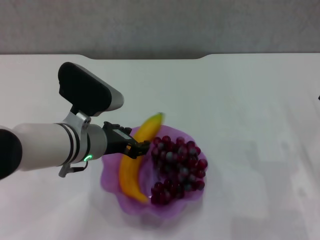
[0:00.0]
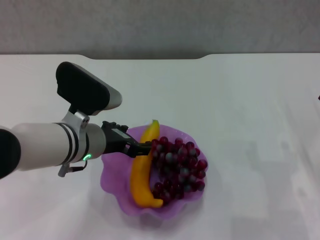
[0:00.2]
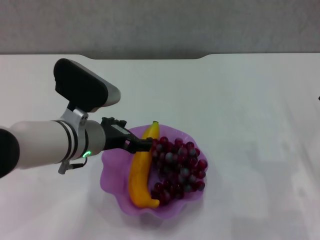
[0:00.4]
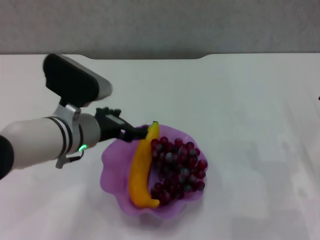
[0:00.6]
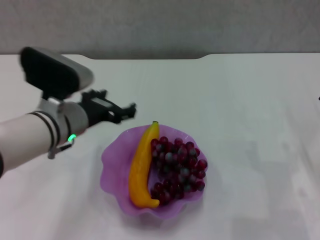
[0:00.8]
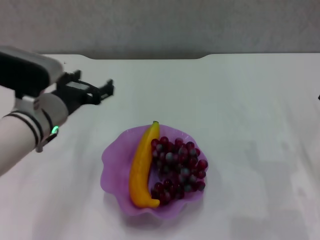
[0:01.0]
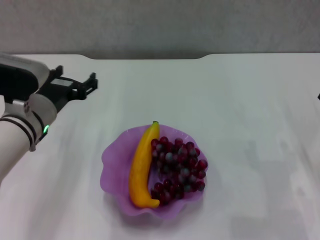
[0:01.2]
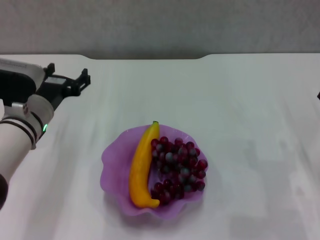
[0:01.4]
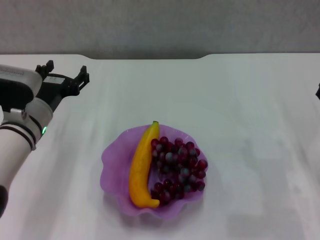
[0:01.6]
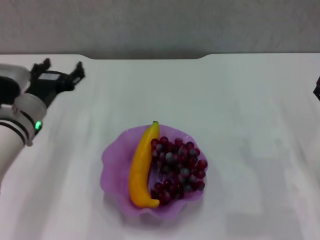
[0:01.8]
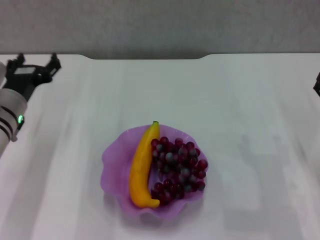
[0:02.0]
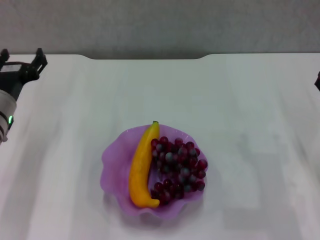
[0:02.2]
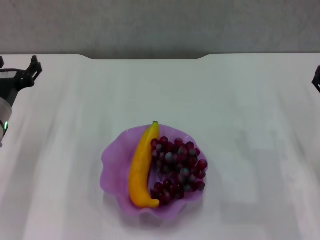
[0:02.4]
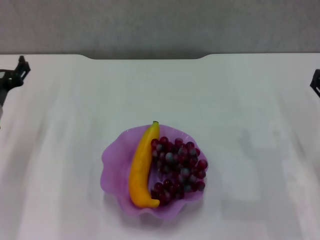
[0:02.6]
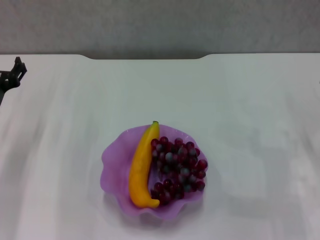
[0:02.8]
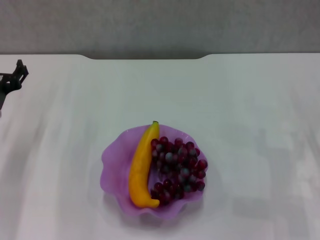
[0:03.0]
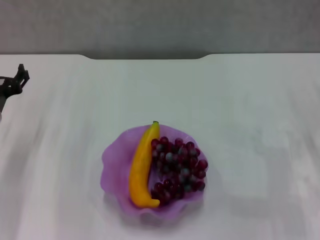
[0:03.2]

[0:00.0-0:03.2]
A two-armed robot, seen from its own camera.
0:00.0 to 0:01.6: The left gripper travels to the left by approximately 10 cm, and opens its fingers.
0:01.6 to 0:03.2: The left gripper shifts roughly 5 cm to the left.

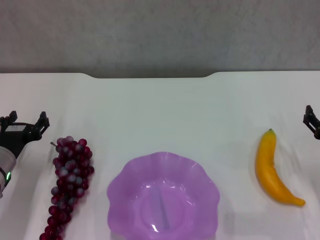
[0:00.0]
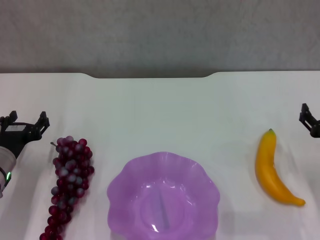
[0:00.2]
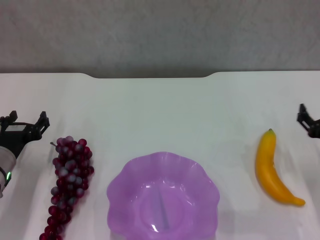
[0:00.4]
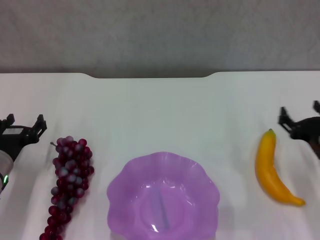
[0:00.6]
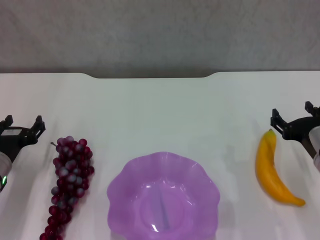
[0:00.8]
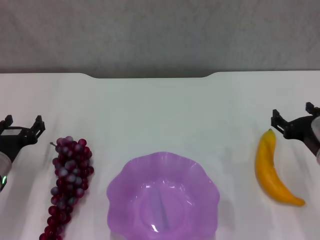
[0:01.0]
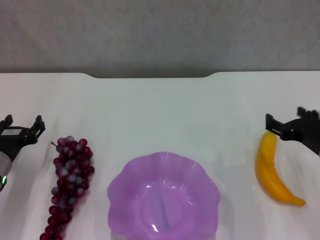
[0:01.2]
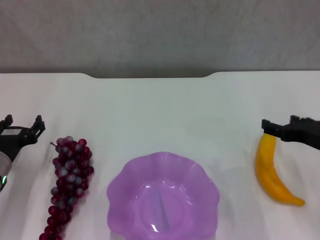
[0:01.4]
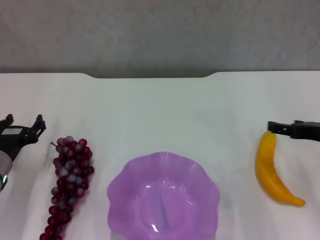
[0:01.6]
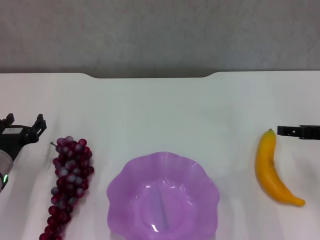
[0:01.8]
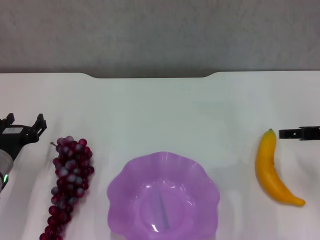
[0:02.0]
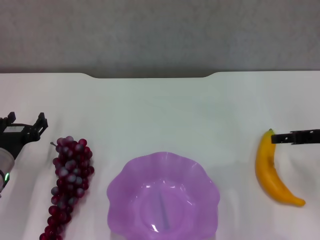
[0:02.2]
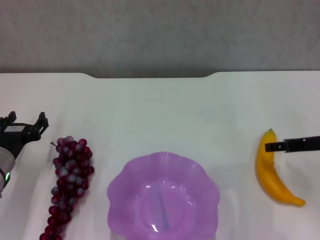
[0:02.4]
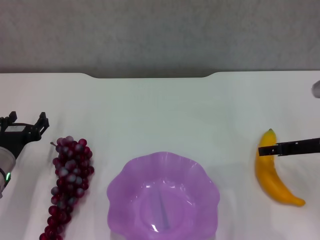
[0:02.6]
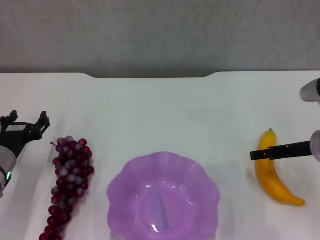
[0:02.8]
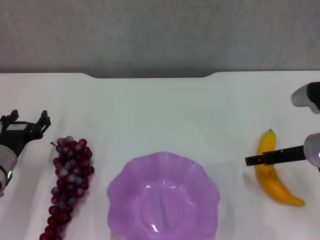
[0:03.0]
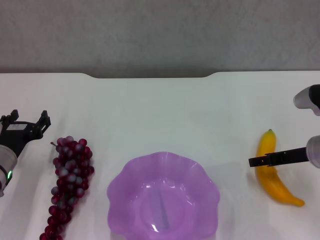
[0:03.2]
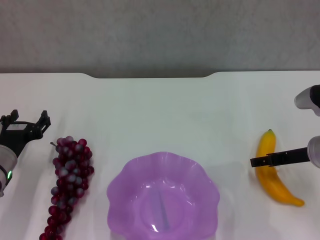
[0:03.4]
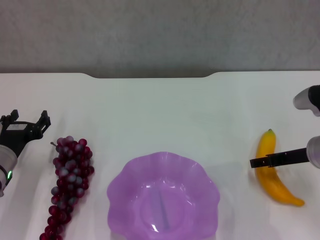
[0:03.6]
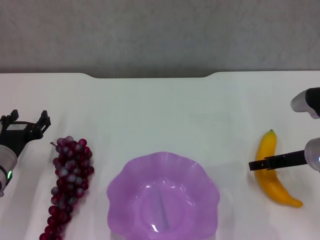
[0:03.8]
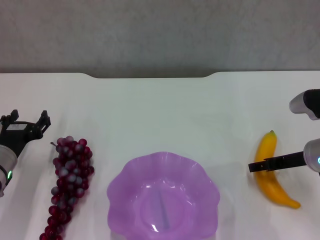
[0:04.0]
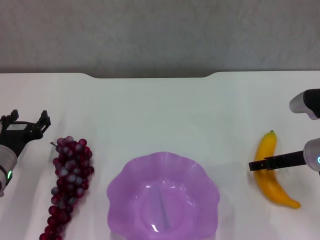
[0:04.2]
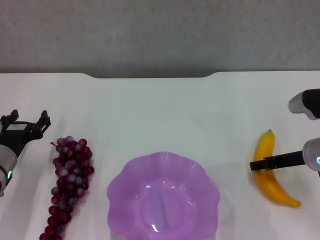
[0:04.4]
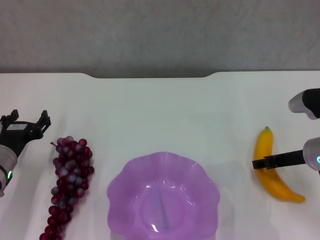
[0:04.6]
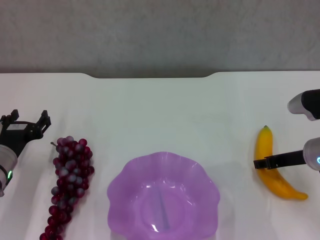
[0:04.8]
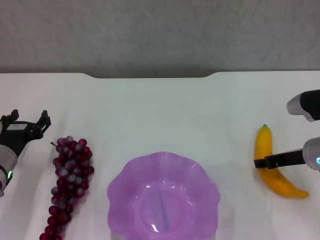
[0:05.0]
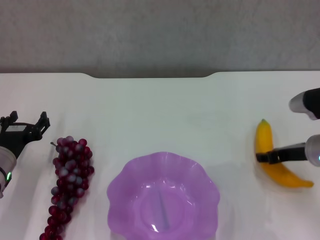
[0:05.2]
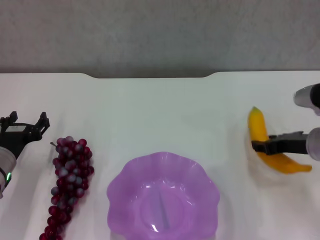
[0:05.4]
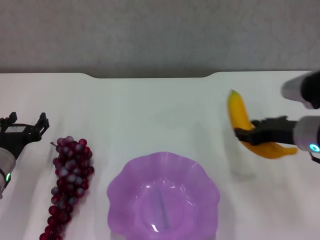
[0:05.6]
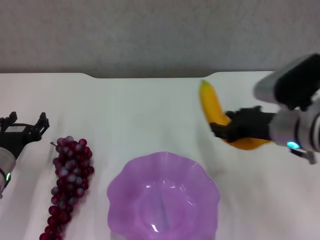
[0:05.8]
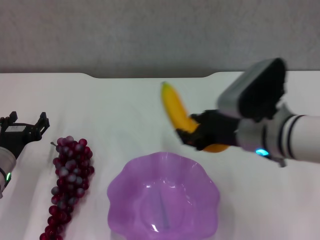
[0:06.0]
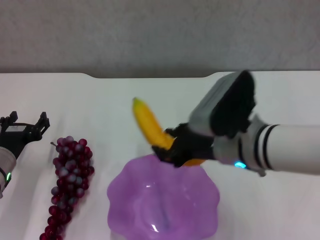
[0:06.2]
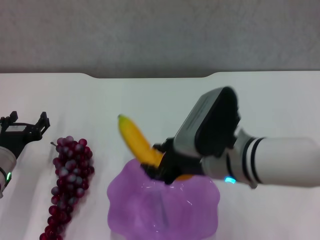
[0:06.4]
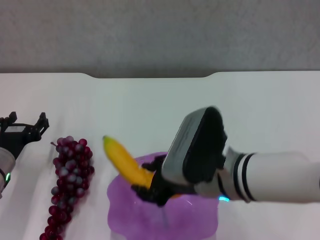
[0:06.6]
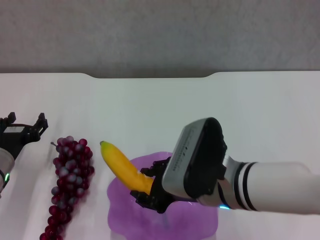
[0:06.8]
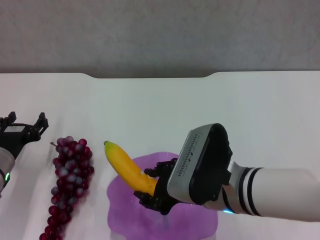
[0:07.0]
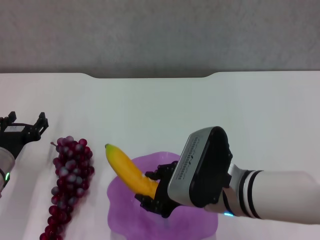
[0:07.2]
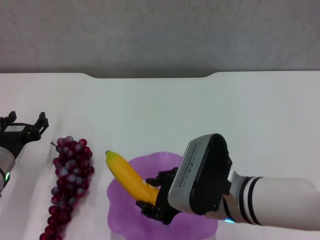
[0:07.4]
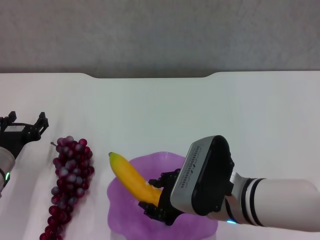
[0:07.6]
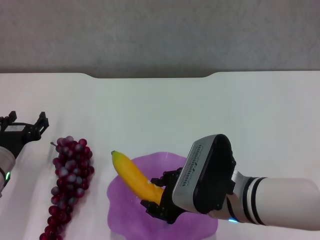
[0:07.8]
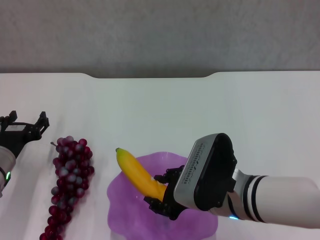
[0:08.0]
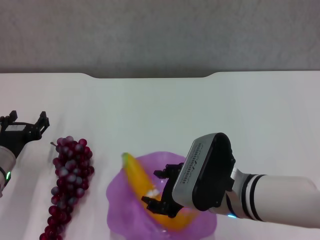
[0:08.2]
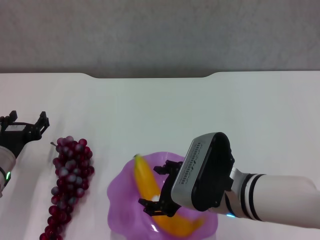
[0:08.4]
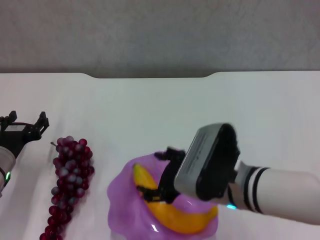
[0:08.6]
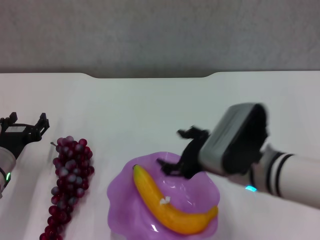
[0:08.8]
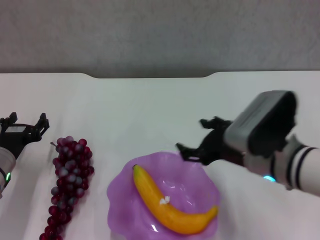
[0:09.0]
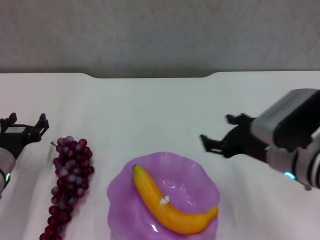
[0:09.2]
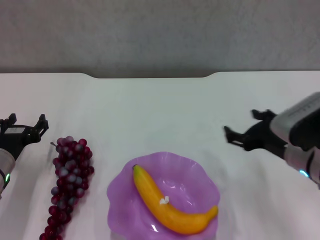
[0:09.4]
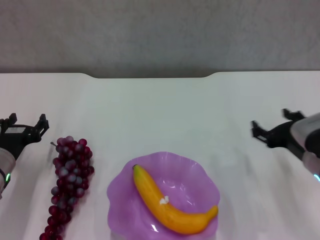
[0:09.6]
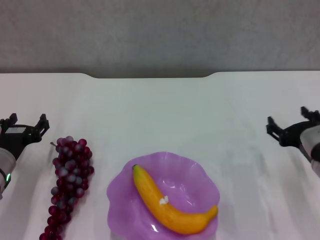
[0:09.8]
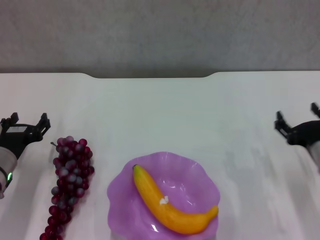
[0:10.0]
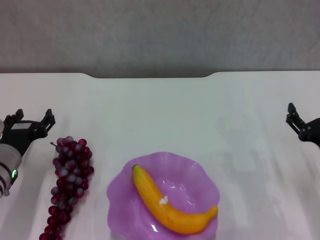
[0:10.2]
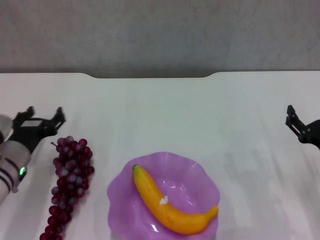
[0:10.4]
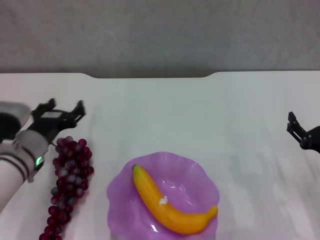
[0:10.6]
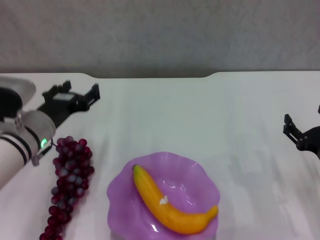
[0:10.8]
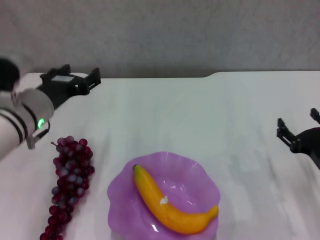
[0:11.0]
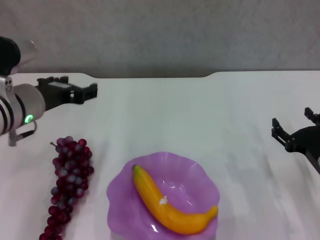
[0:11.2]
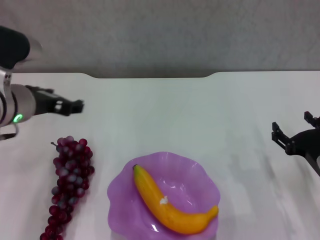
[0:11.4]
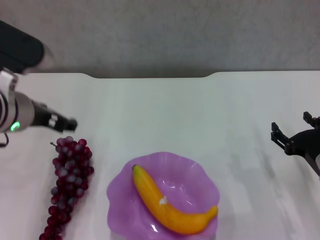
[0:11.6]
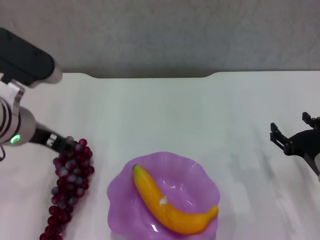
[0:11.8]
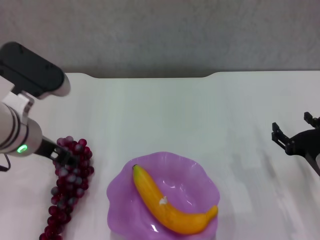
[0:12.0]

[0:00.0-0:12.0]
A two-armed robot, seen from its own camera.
Step, 0:00.0 to 0:04.6: Grasp the banana with right gripper.
Step, 0:05.0 to 0:08.8: Place the banana in the purple plate with right gripper.
0:00.0 to 0:01.6: The right gripper is displaced upward by approximately 10 cm.
0:01.6 to 0:03.0: The right gripper ends up approximately 5 cm from where it was.
0:03.0 to 0:04.4: Both grippers stay about where they are.
0:04.4 to 0:06.0: The right gripper shifts roughly 15 cm to the left and upward, and closes up.
0:06.0 to 0:07.6: The right gripper moves backward and to the left, some 10 cm.
0:07.6 to 0:09.0: The right gripper moves to the right, roughly 5 cm, and opens its fingers.
0:09.0 to 0:10.4: The right gripper moves to the right and downward, about 15 cm.
0:10.4 to 0:12.0: The left gripper shifts about 15 cm upward and to the right.

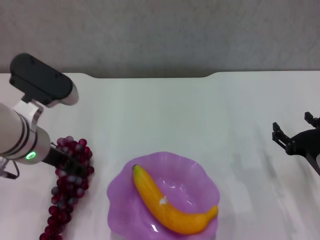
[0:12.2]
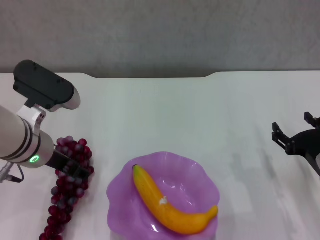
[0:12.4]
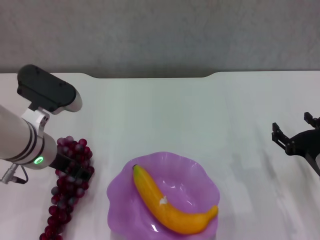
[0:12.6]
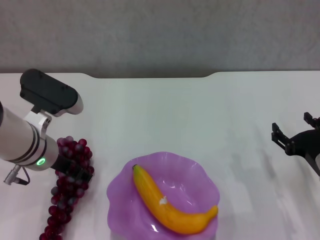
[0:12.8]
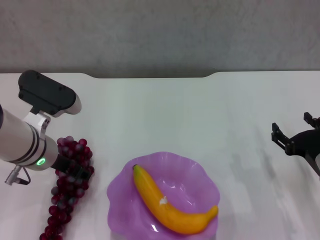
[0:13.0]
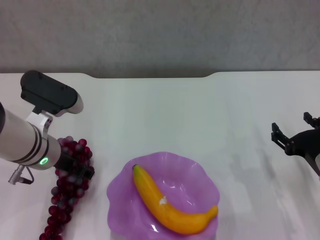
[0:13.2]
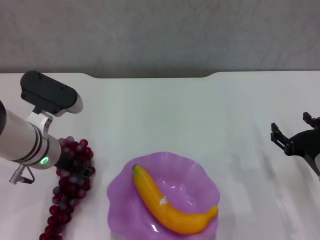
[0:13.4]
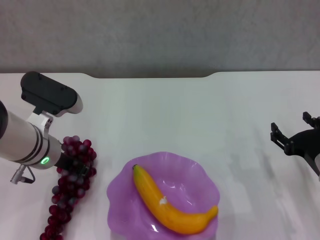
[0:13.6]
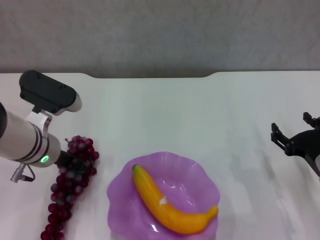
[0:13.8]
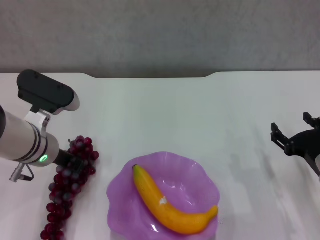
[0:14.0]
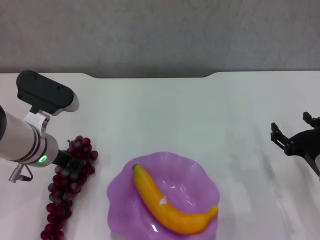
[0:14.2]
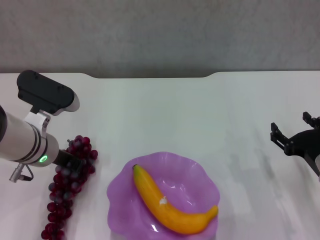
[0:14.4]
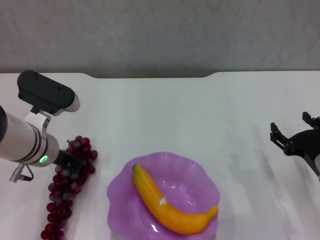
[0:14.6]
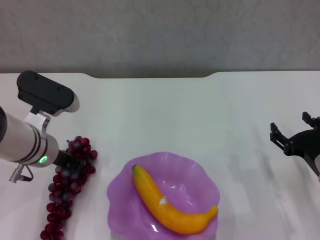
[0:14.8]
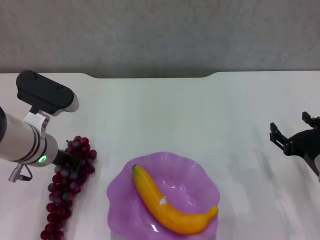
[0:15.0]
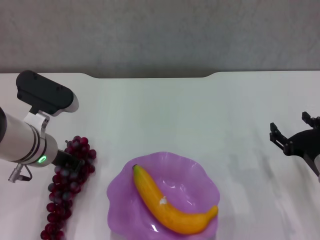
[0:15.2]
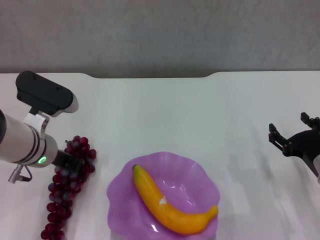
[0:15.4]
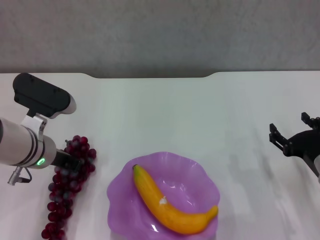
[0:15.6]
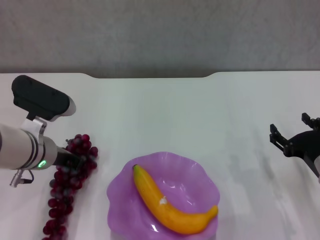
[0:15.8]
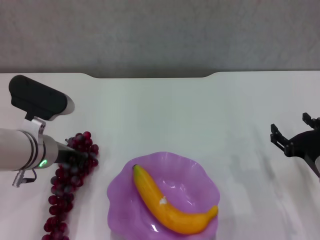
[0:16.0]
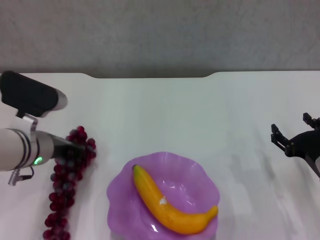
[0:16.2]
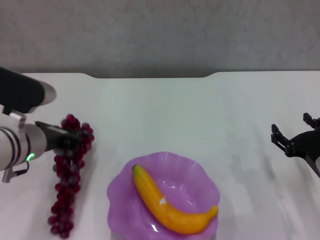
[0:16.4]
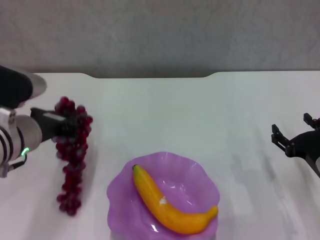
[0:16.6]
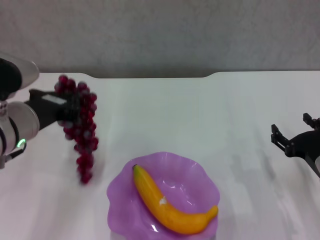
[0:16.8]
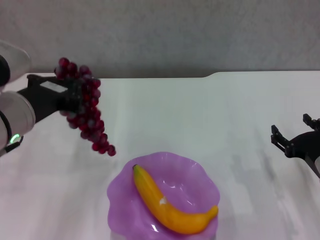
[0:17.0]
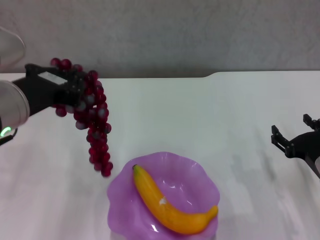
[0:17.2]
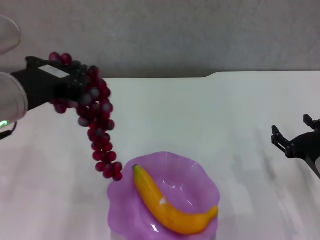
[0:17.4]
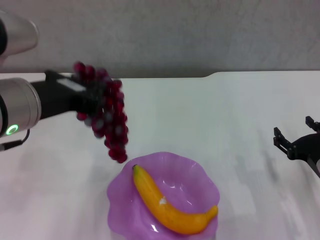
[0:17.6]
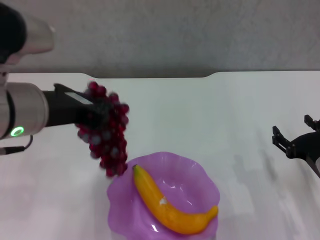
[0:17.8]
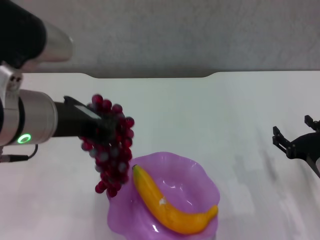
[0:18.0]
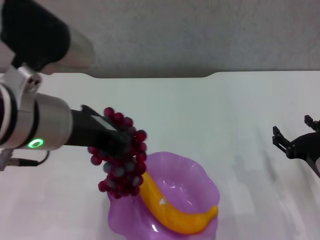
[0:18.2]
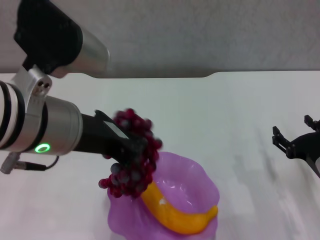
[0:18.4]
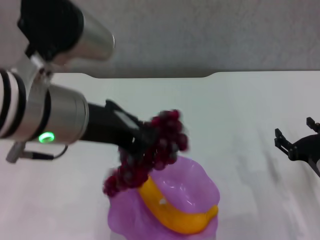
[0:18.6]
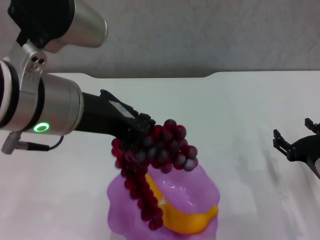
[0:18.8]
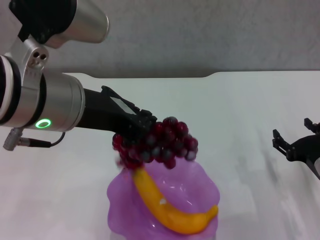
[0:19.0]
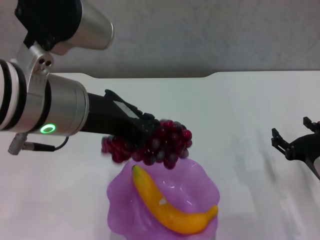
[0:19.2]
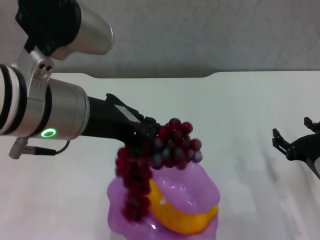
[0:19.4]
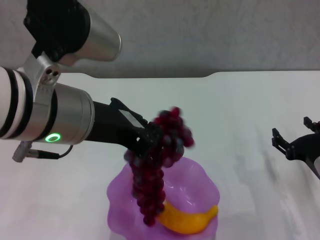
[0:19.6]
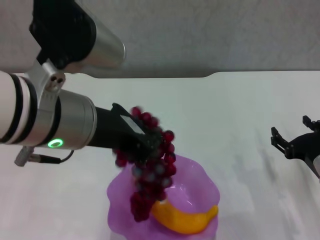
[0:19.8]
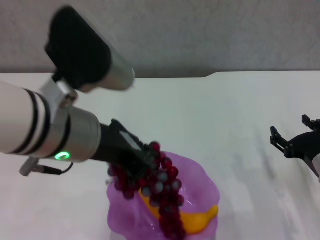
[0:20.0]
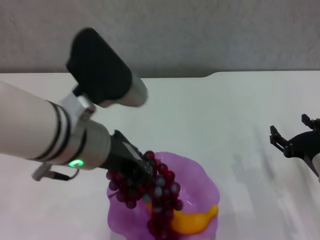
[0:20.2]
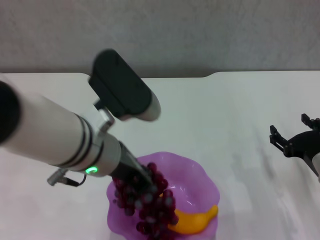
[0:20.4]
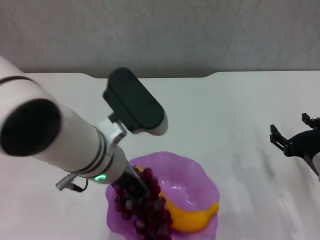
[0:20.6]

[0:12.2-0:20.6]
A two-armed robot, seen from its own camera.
Step, 0:12.2 to 0:14.2: Grasp the grape with left gripper.
0:12.2 to 0:13.6: The left gripper changes place by roughly 5 cm.
0:13.6 to 0:15.0: The left gripper closes up.
0:16.4 to 0:17.8: The left gripper moves upward and backward, about 15 cm.
0:19.2 to 0:20.6: The left gripper shifts about 10 cm downward.
